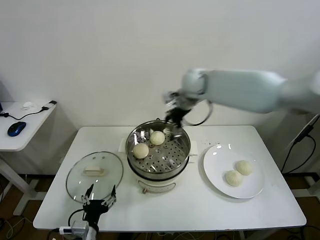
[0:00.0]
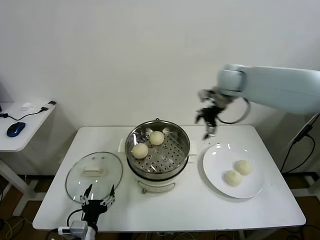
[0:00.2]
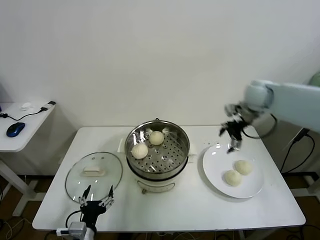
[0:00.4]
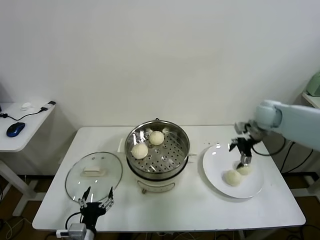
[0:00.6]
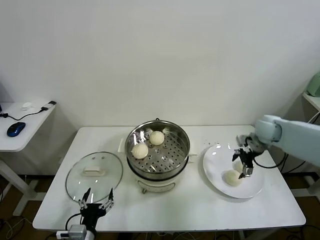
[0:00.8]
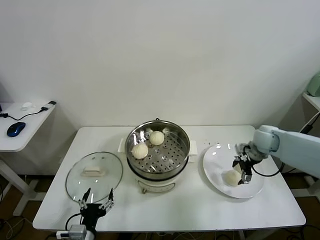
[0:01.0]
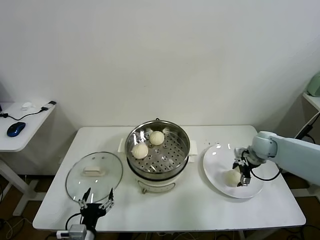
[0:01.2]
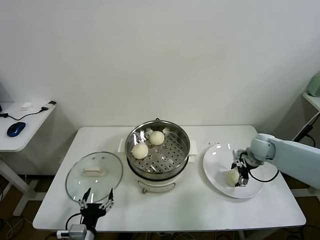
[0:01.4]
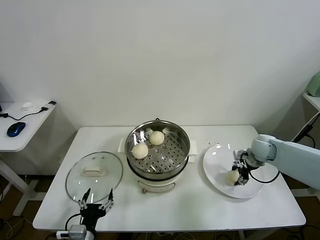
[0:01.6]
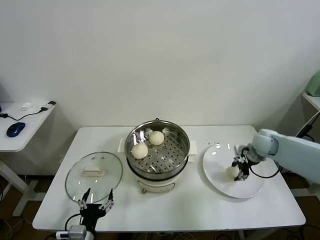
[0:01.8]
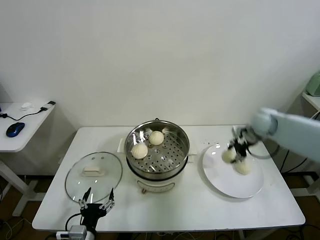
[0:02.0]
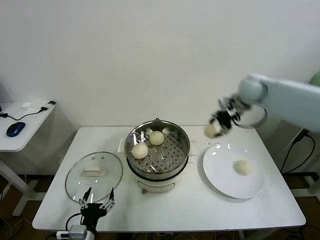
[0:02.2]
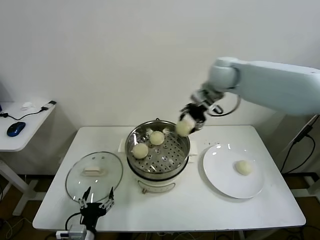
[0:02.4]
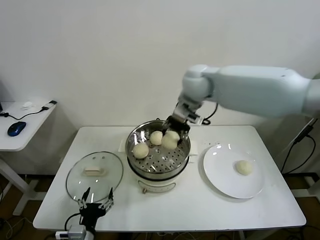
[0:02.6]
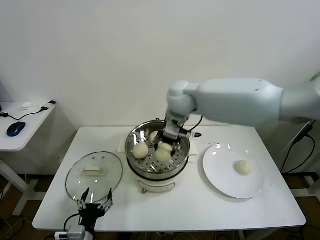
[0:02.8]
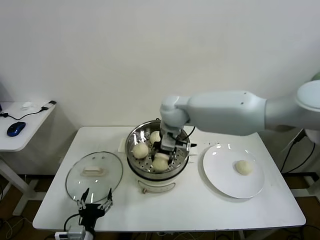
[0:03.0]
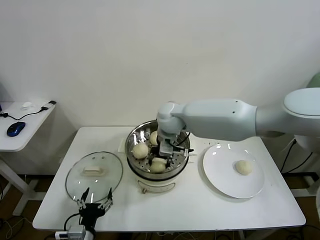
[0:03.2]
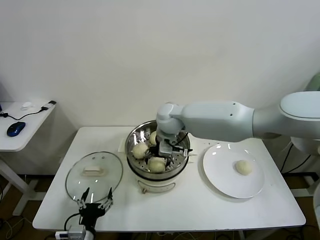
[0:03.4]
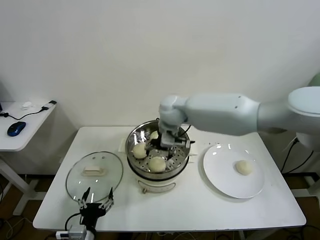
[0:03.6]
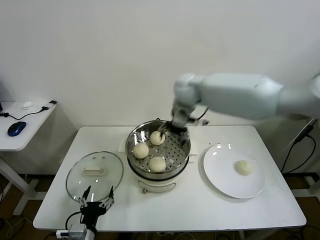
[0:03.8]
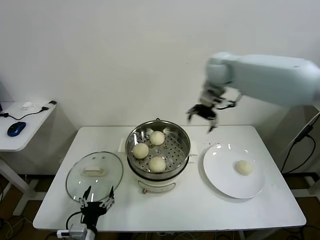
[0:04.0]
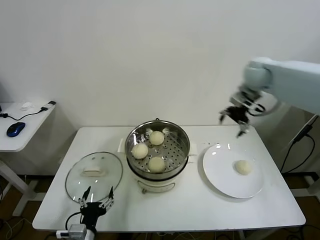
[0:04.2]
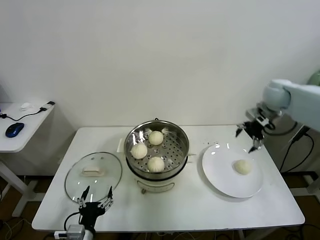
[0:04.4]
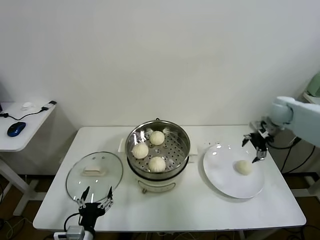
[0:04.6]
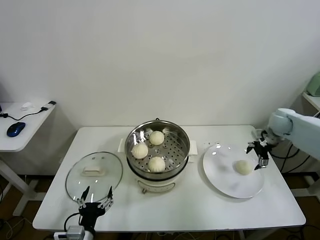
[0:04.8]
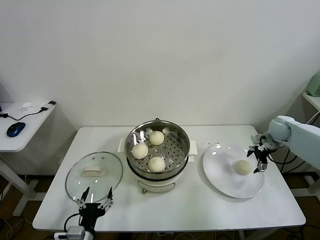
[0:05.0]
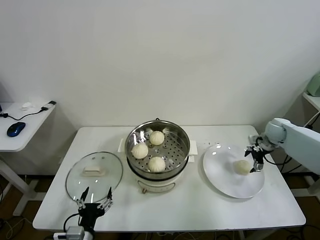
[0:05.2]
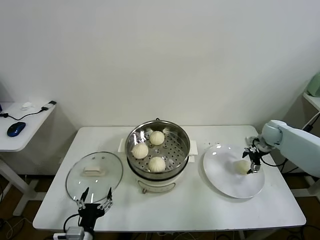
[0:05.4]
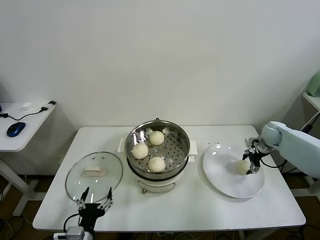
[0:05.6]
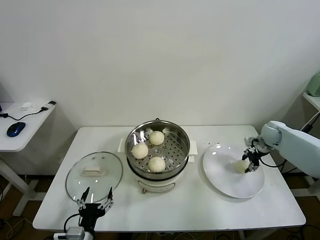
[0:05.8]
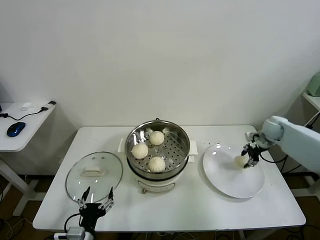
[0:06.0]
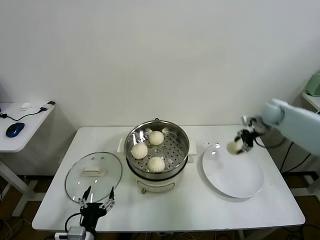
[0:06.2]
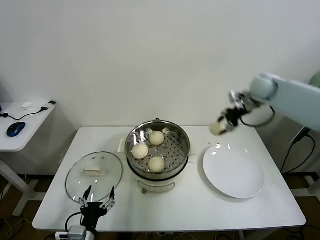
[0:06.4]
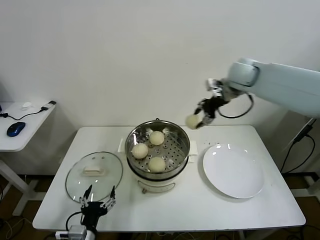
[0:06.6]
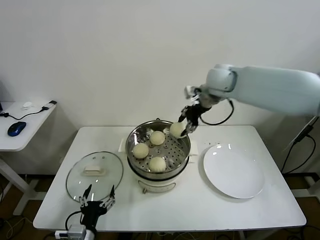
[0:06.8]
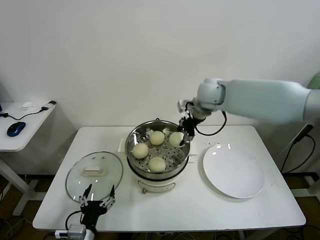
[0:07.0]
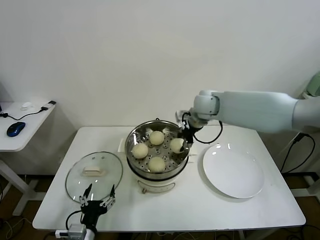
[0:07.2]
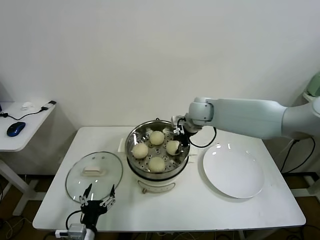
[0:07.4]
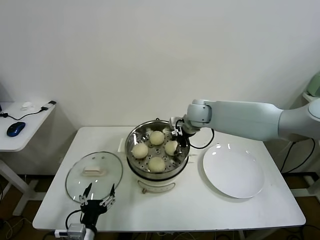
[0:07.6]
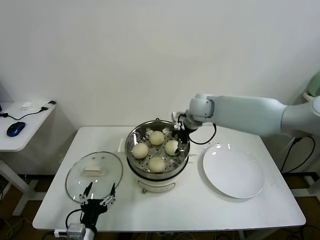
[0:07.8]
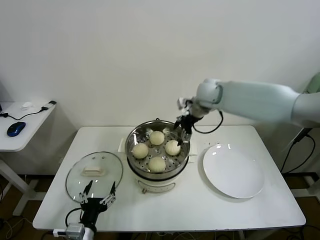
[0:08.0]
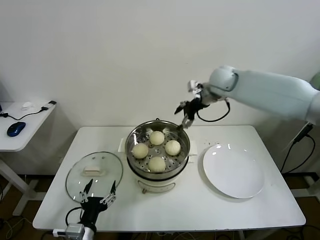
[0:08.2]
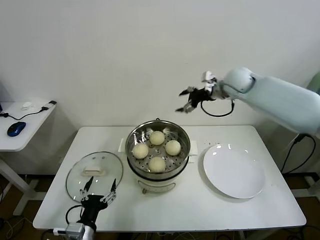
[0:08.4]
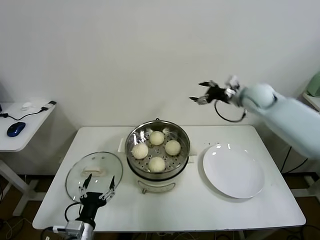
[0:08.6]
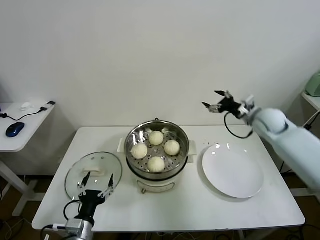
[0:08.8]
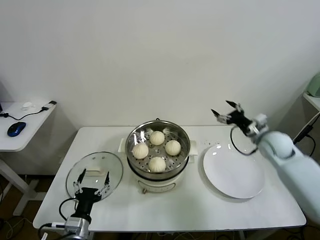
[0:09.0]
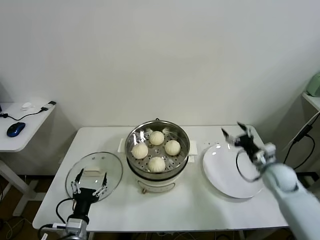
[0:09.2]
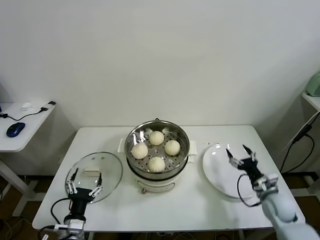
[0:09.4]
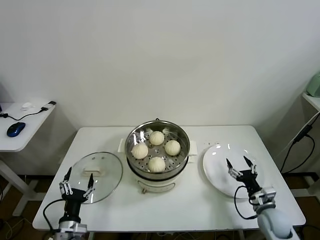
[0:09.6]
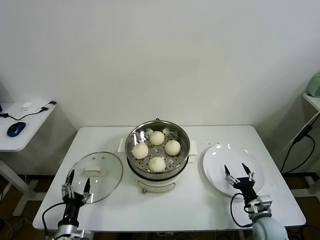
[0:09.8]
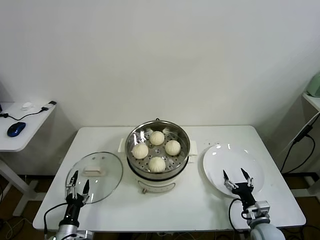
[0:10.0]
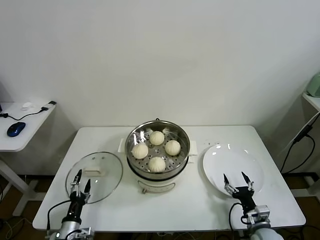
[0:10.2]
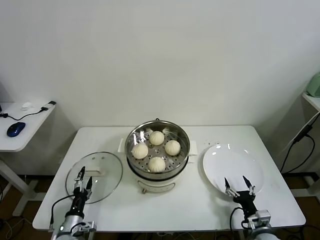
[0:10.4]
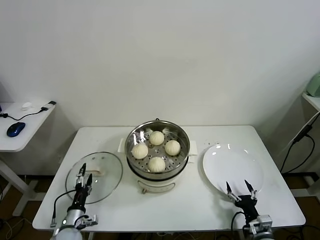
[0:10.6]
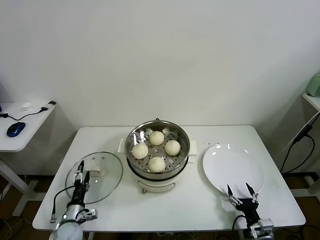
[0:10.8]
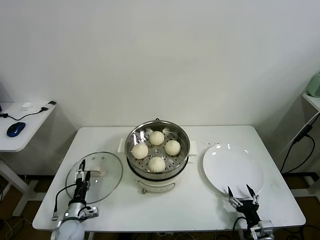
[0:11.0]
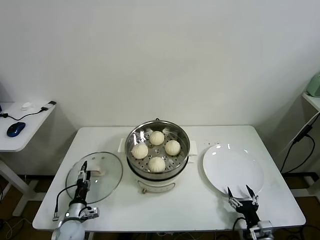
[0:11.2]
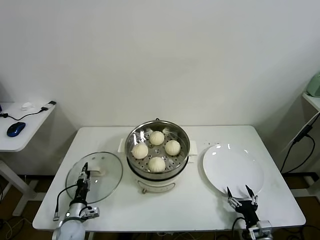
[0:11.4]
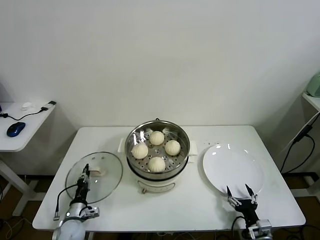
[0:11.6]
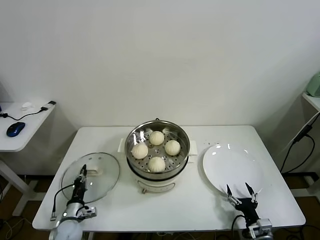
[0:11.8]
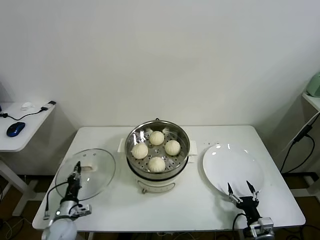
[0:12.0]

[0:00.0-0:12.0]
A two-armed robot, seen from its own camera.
Task of the whole recording: take steamed baozi put them in steamer.
Step, 0:00.0 to 0:01.6: Grasp the baozi in the plate with right gripper.
Step, 0:01.8 to 0:03.6: Place the baozi on the steamer with right gripper.
Step, 0:03.8 to 0:05.8: Grasp the baozi in the plate with right gripper.
Step, 0:06.0 to 0:08.0: Place the baozi on the steamer with right gripper.
Step, 0:08.2 to 0:11.8: Grasp the pot lid with left gripper.
0:00.0 to 0:01.6: The right gripper goes some 35 cm downward and to the right, and closes its fingers.
0:01.6 to 0:03.0: The right gripper goes roughly 40 cm to the left and upward.
0:03.0 to 0:04.4: The right gripper travels to the right by some 35 cm, and opens.
0:04.4 to 0:06.0: The right gripper shifts about 15 cm downward, and closes up.
0:06.0 to 0:07.6: The right gripper heads to the left, covering about 30 cm.
0:07.6 to 0:09.0: The right gripper moves to the right, approximately 25 cm, and opens up.
0:09.0 to 0:10.4: The left gripper moves downward and to the left, roughly 15 cm; the right gripper travels backward and downward by approximately 35 cm.
0:10.4 to 0:12.0: The left gripper moves forward, about 5 cm, and closes.

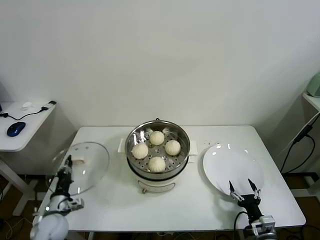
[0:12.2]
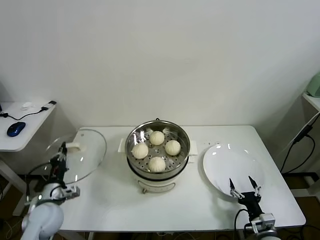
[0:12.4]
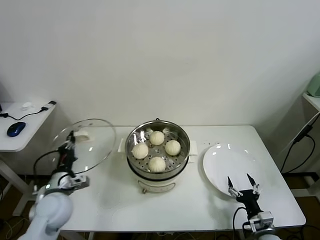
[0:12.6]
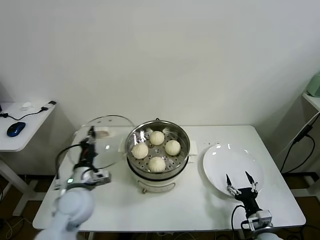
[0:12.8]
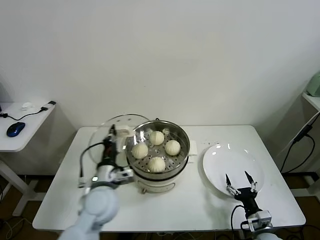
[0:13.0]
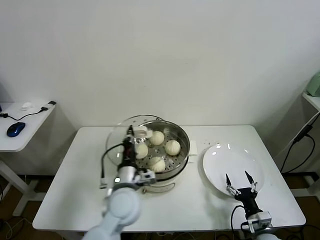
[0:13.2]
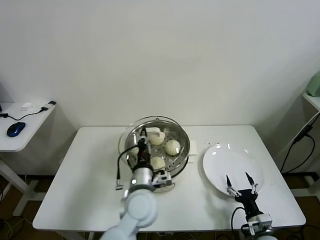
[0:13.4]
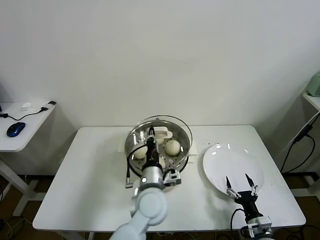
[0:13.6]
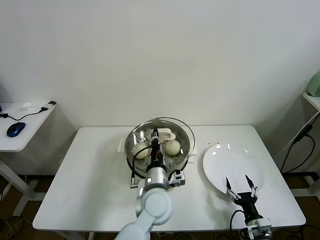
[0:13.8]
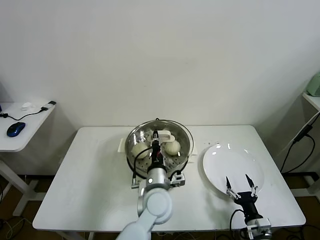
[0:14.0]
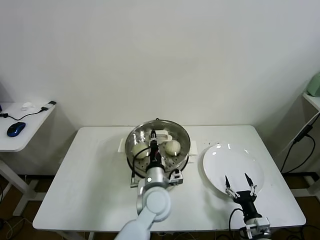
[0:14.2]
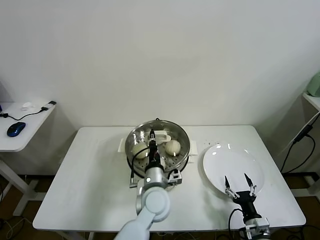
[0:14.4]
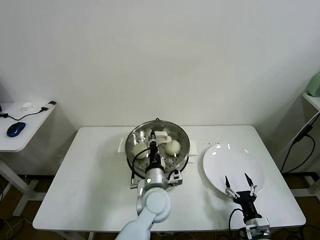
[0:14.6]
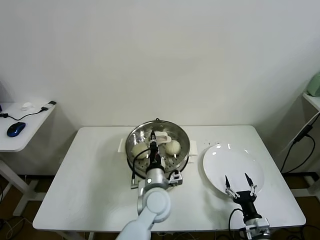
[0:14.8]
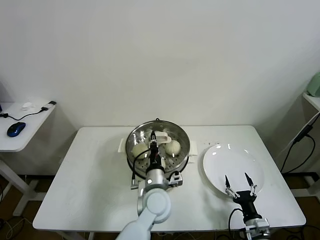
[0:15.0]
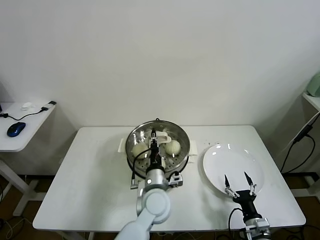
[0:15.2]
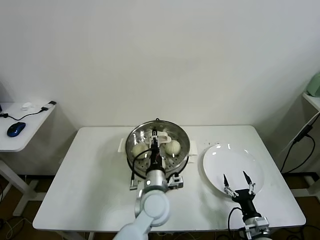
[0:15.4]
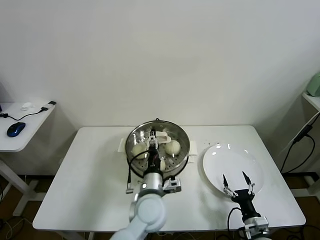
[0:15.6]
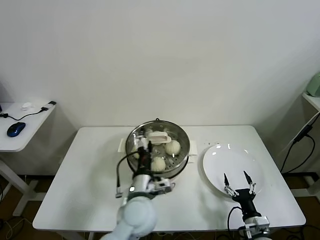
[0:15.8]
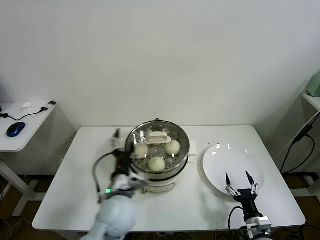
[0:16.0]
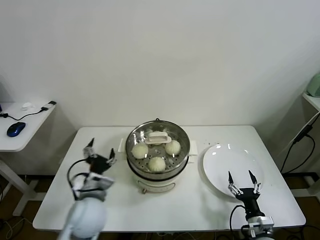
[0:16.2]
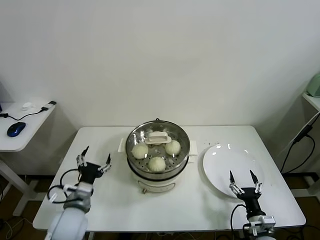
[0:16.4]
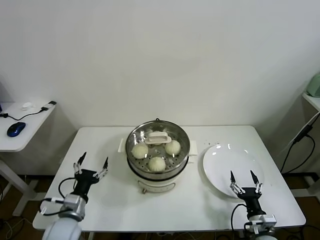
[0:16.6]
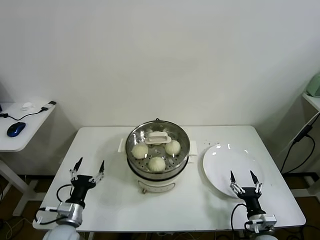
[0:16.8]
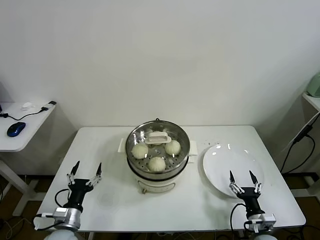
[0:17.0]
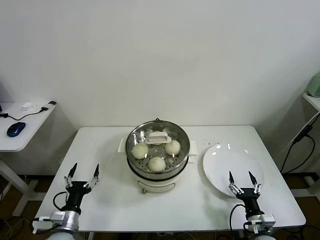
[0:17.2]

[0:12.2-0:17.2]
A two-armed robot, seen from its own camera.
Task of the whole recording: take steamed baozi put them in steamer.
Step, 0:12.2 to 0:15.6: Place the pot lid on the steamer with left gripper.
0:12.2 to 0:13.8: The left gripper shifts about 40 cm to the right and upward.
0:13.8 to 0:15.6: The left gripper opens its fingers.
0:15.6 to 0:17.2: The left gripper shifts approximately 30 cm to the left.
